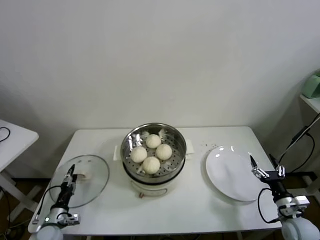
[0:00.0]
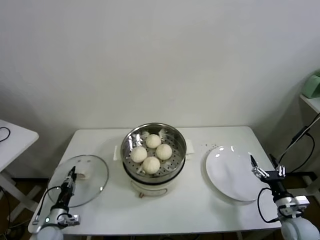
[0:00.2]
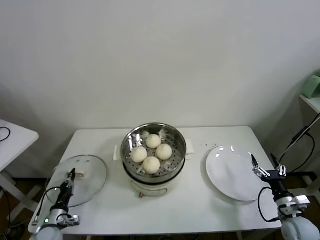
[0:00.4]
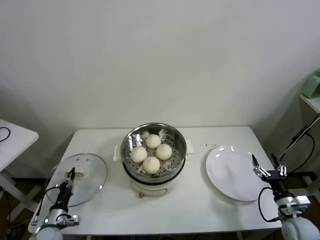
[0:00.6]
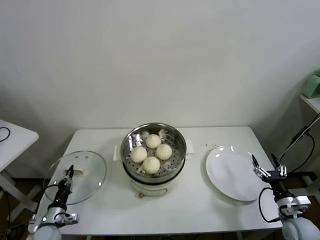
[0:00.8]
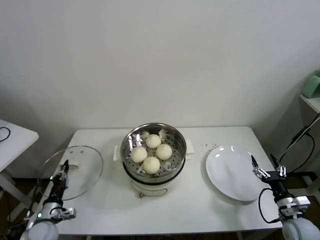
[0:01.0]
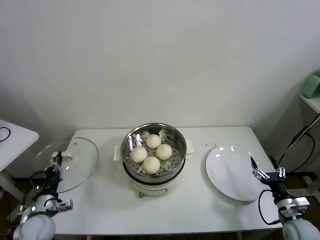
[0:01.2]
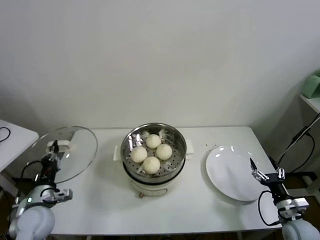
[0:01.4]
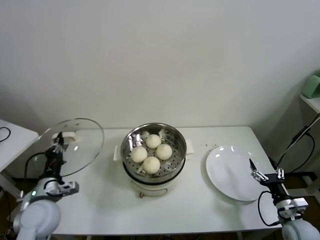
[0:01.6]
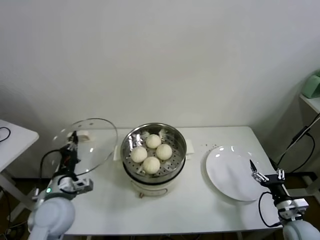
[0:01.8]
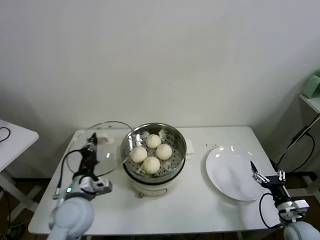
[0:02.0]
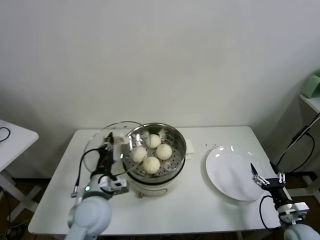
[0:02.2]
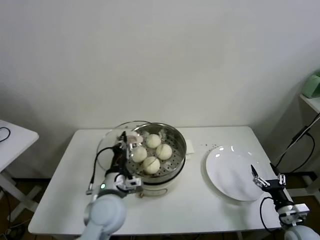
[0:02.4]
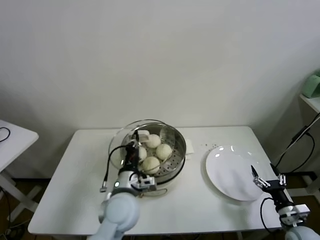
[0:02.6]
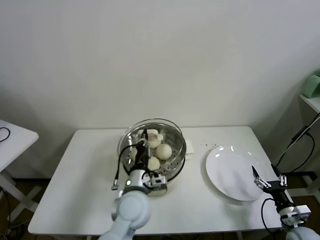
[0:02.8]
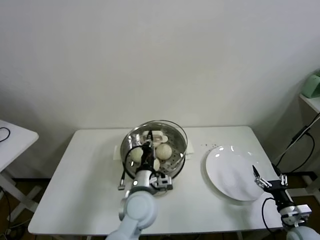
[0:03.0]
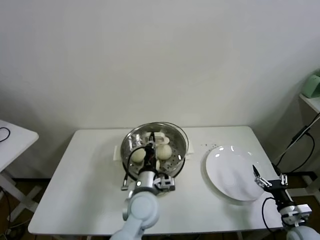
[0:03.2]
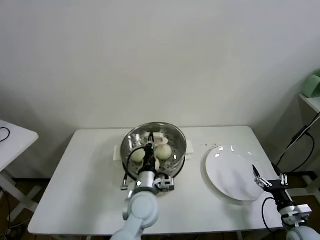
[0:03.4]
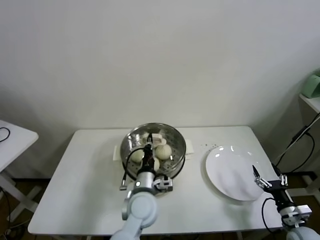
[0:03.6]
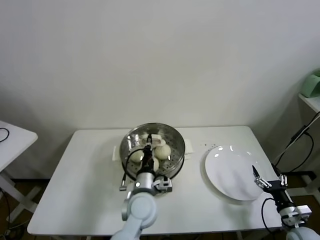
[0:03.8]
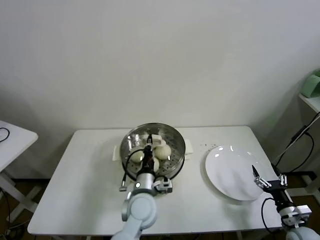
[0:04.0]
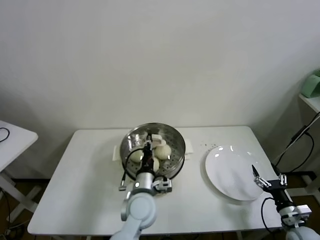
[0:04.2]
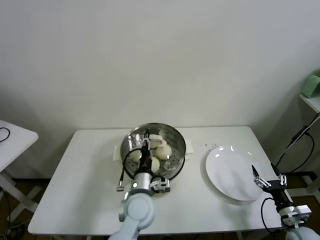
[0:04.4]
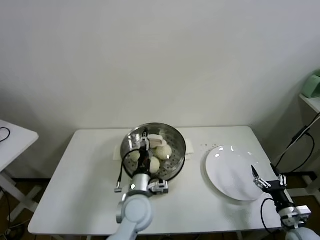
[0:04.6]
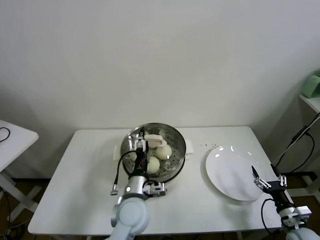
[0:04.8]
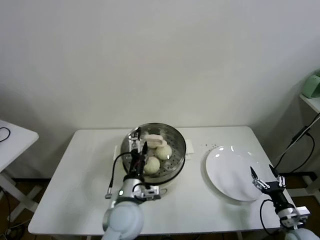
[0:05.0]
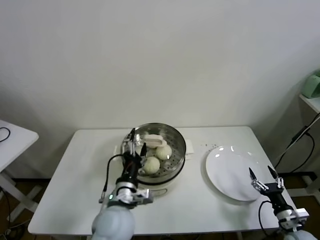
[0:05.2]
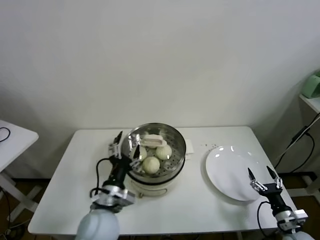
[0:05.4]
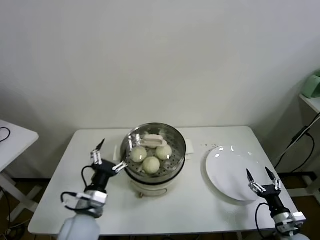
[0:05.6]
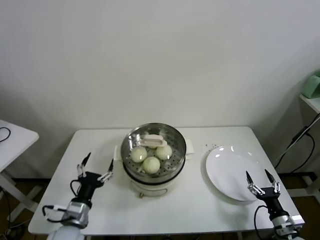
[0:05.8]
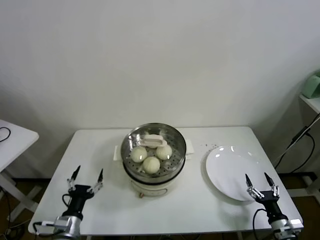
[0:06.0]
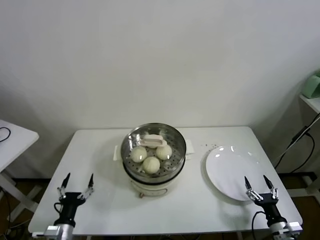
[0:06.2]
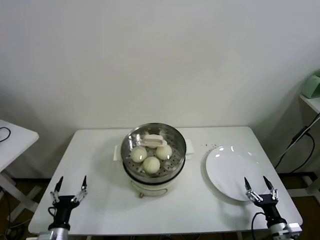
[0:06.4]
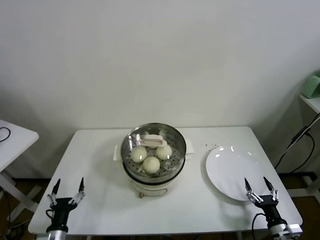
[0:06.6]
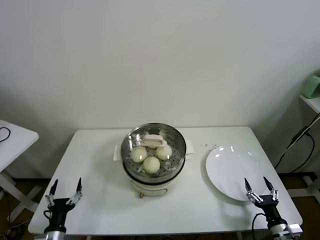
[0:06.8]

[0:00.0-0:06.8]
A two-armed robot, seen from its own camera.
Task of the whole recording: take steamed baozi put them in steamer.
0:00.0 to 0:01.4: The left gripper travels upward by some 15 cm, and closes up.
0:01.4 to 0:02.8: The left gripper shifts some 30 cm to the right.
0:02.8 to 0:04.0: The left gripper changes place by approximately 5 cm.
0:04.0 to 0:05.4: The left gripper heads to the left and backward, covering approximately 10 cm, and opens up.
0:05.4 to 0:06.8: The left gripper goes roughly 25 cm to the left and downward, while the right gripper ends up about 5 cm from where it was.
